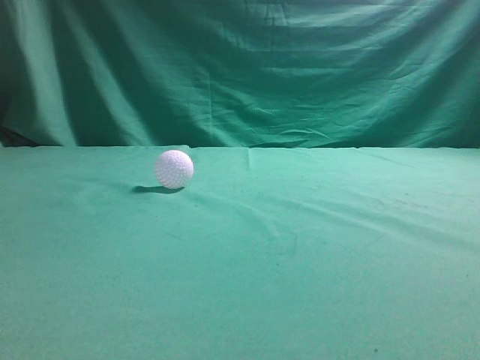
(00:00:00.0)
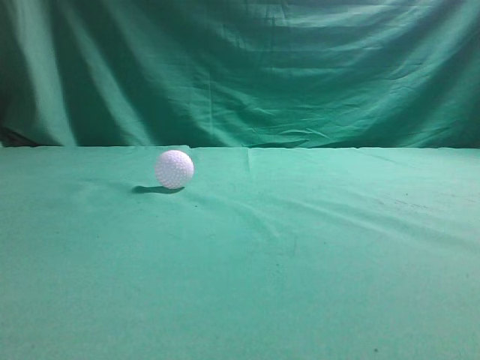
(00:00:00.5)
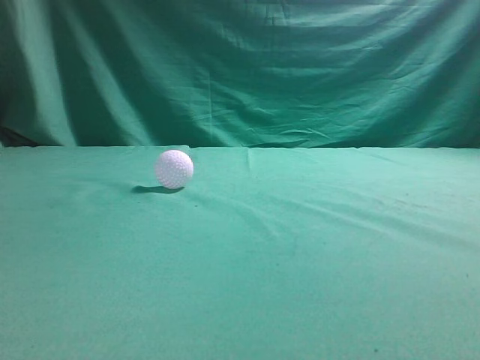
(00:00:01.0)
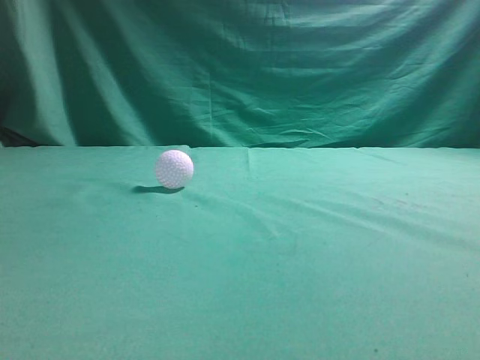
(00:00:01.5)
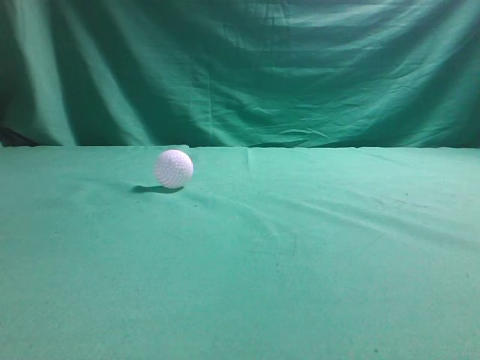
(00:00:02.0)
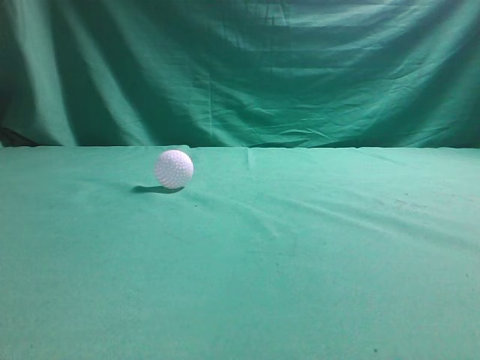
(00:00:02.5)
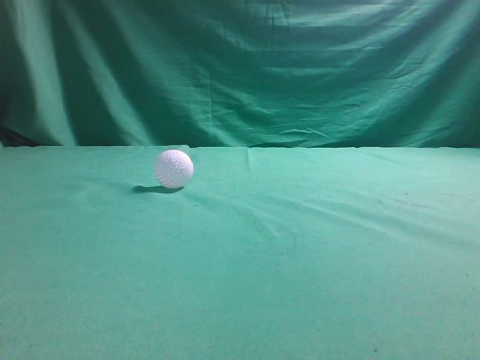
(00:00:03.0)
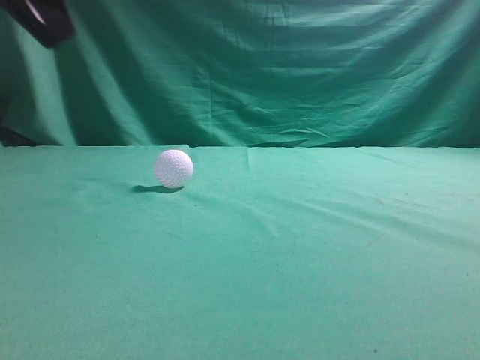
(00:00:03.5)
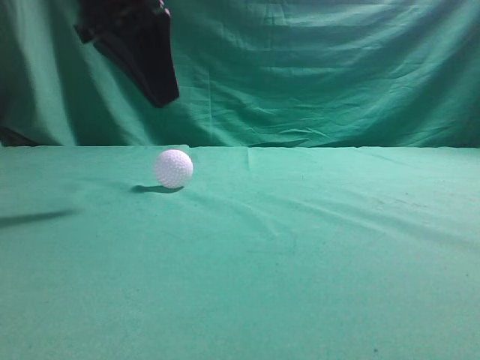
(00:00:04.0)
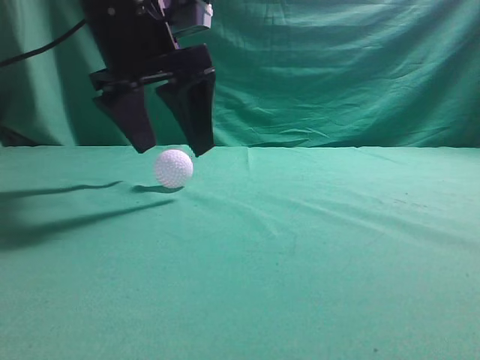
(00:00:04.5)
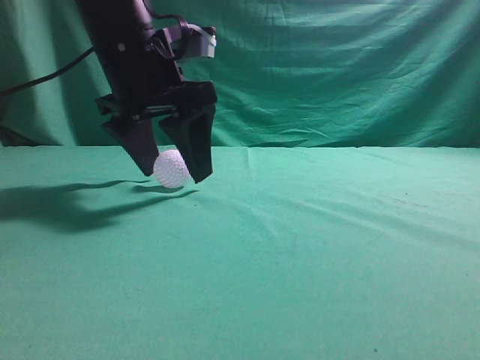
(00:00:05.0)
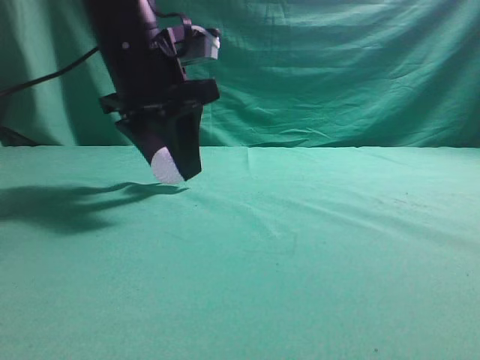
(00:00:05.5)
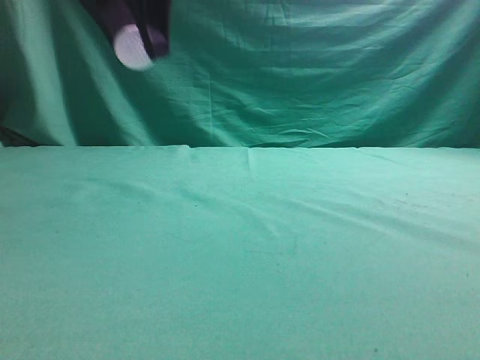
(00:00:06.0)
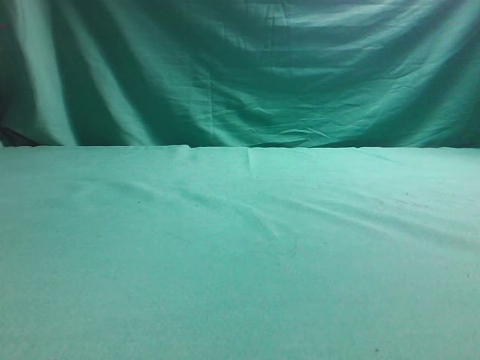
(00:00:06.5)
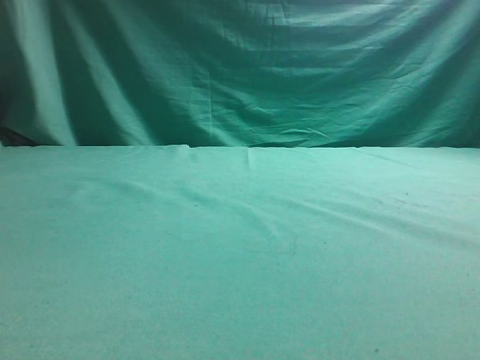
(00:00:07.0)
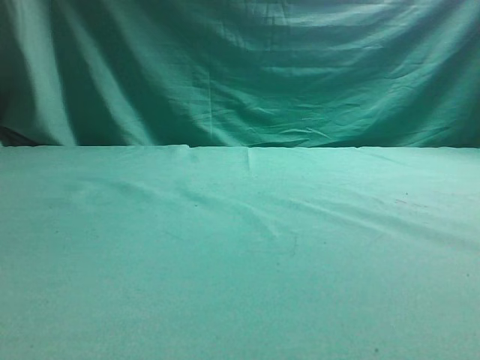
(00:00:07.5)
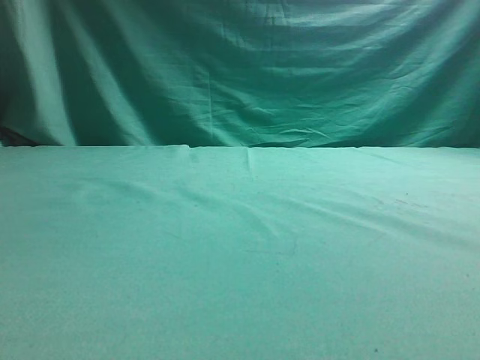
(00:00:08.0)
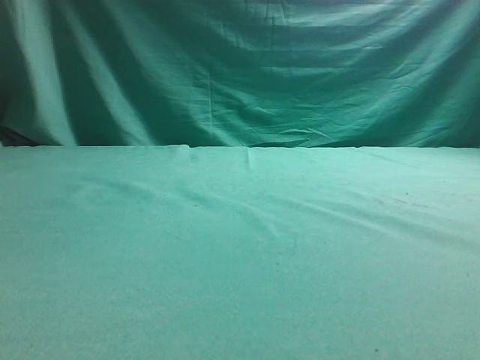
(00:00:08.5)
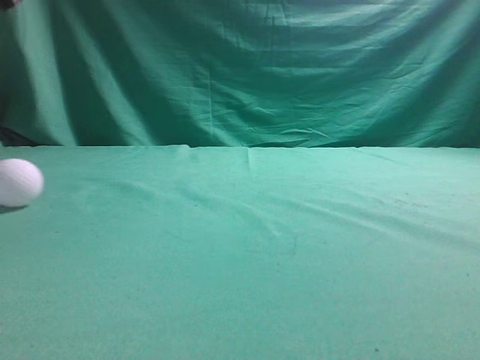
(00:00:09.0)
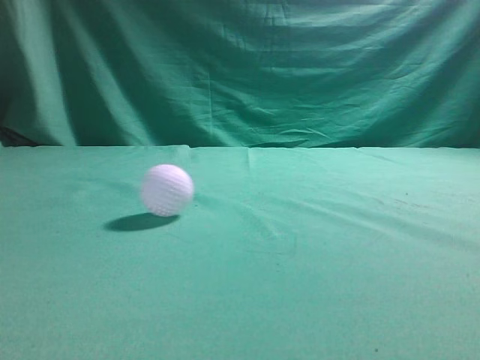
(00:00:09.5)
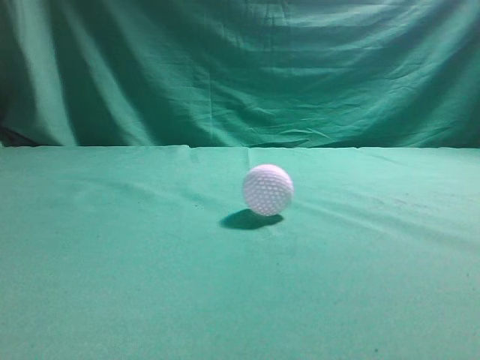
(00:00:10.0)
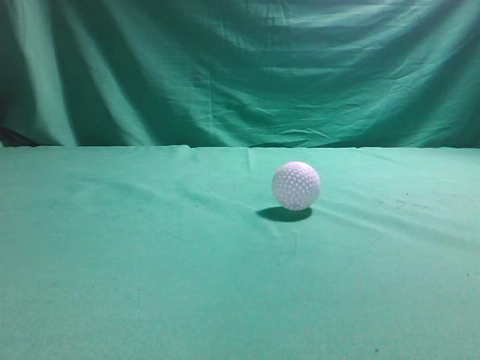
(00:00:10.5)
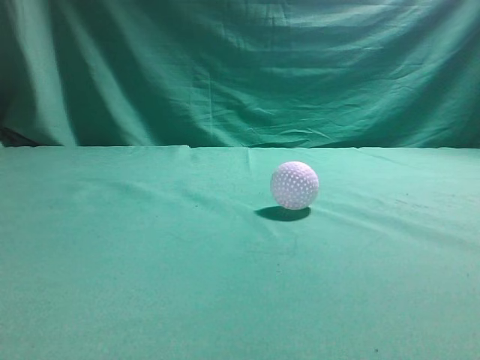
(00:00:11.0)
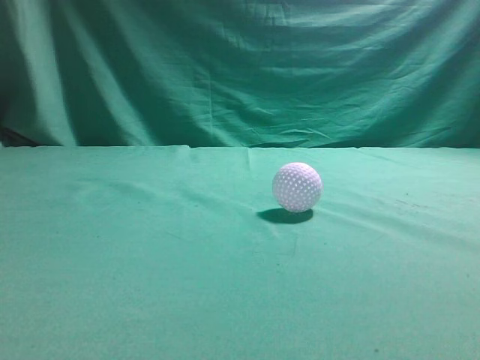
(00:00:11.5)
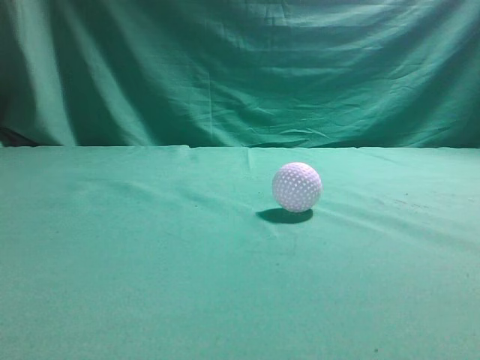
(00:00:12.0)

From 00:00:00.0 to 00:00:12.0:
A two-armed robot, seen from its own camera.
Task of the whole recording: pick up the ball and place it on the plate, then pick up the ball from the plate and put it in the center of the table.
Step, from 00:00:00.0 to 00:00:05.5: Grab the spherical object with your left arm.
Step, from 00:00:06.0 to 00:00:08.0: Place the sphere on the white object.
From 00:00:02.0 to 00:00:04.0: The left gripper shifts some 30 cm forward and to the right.
From 00:00:04.0 to 00:00:06.0: The left gripper moves about 5 cm, and opens up.
From 00:00:06.0 to 00:00:08.0: The left gripper shifts approximately 25 cm to the left.
From 00:00:08.0 to 00:00:10.0: The left gripper heads upward, backward and to the right, covering about 25 cm, and closes.
From 00:00:10.0 to 00:00:12.0: The left gripper goes some 15 cm backward and downward. Meanwhile the right gripper shifts roughly 10 cm upward.

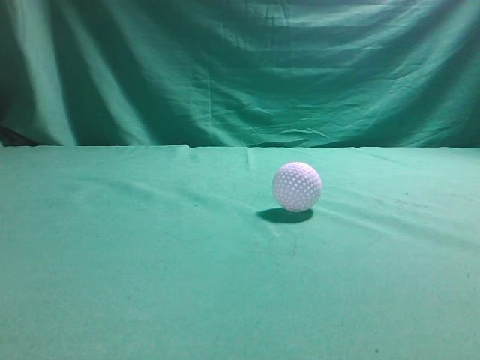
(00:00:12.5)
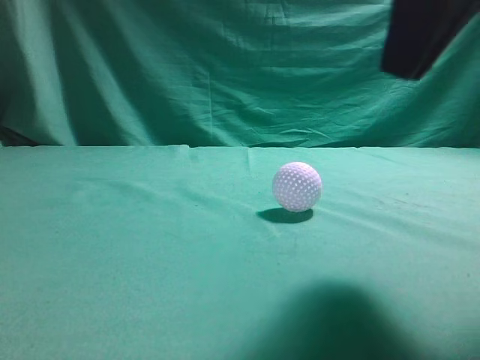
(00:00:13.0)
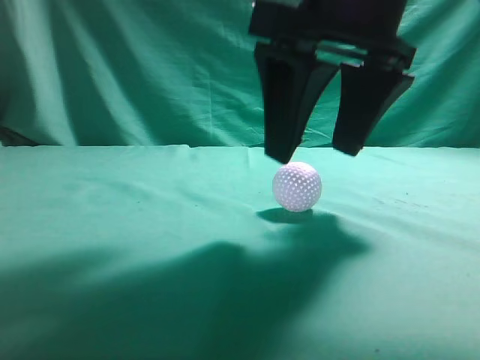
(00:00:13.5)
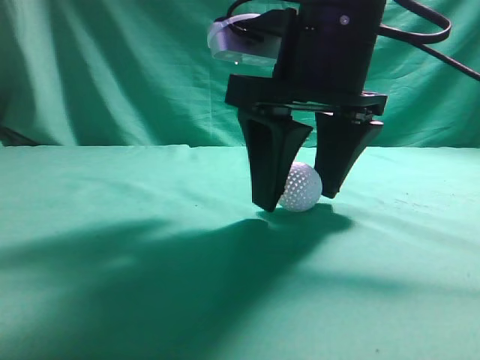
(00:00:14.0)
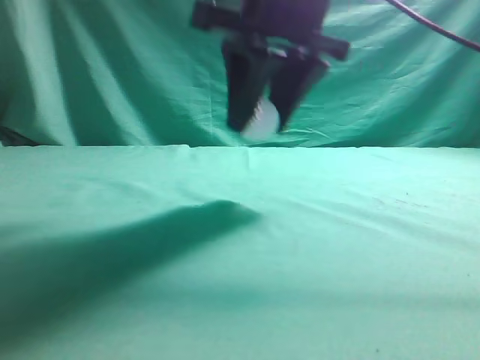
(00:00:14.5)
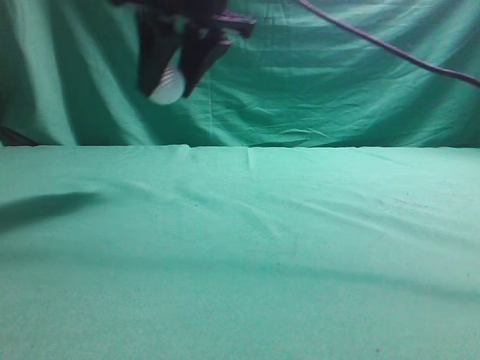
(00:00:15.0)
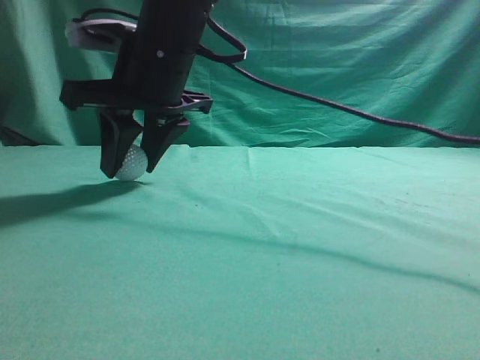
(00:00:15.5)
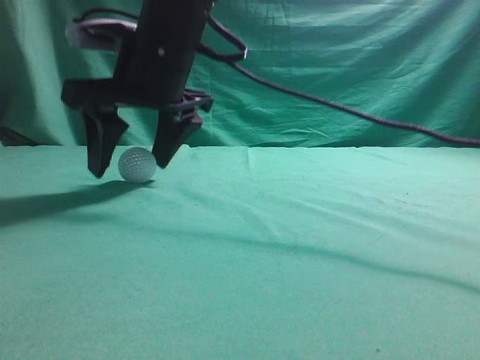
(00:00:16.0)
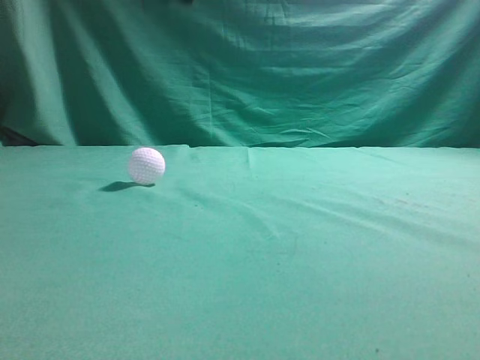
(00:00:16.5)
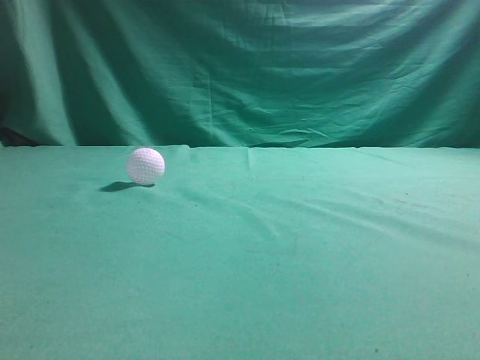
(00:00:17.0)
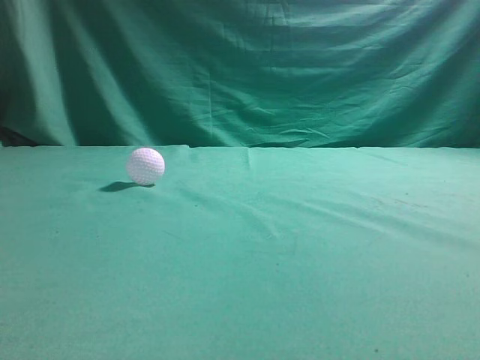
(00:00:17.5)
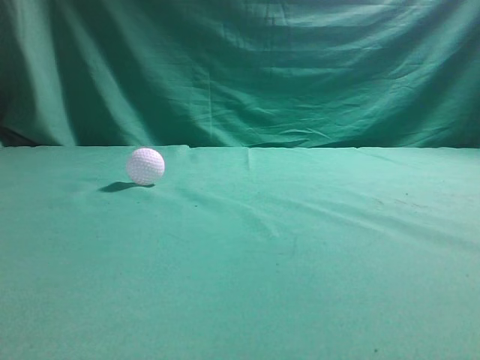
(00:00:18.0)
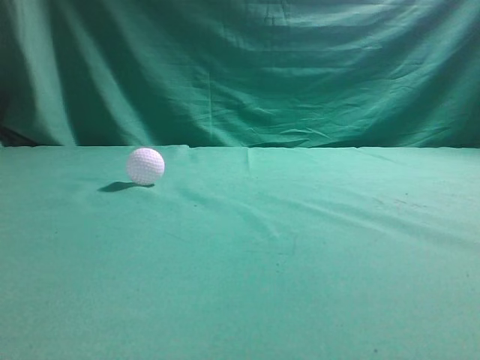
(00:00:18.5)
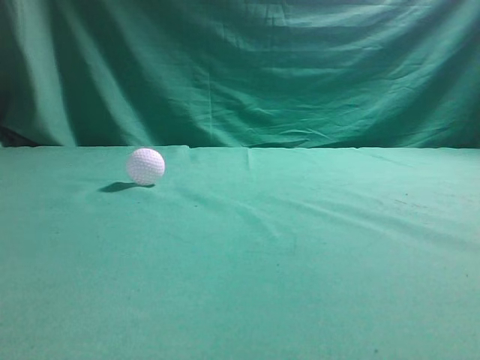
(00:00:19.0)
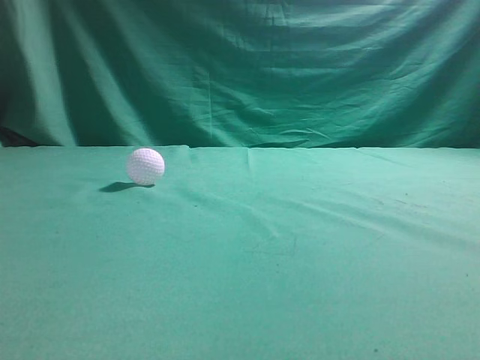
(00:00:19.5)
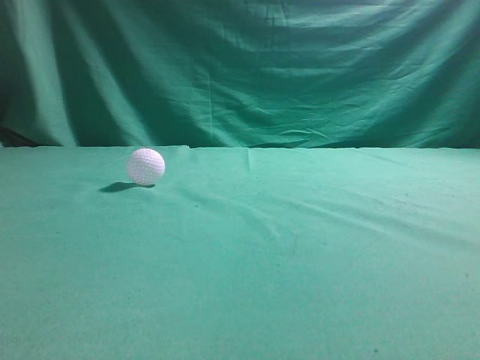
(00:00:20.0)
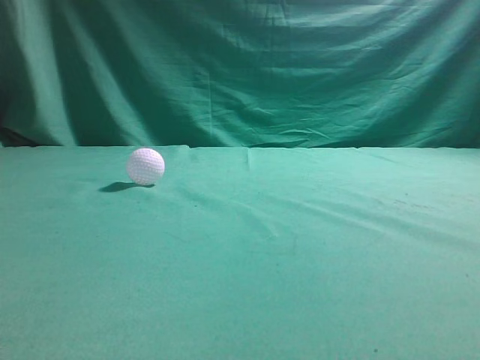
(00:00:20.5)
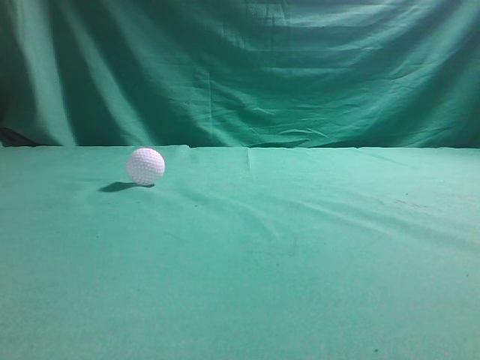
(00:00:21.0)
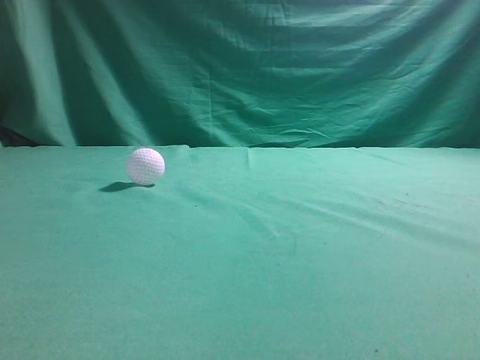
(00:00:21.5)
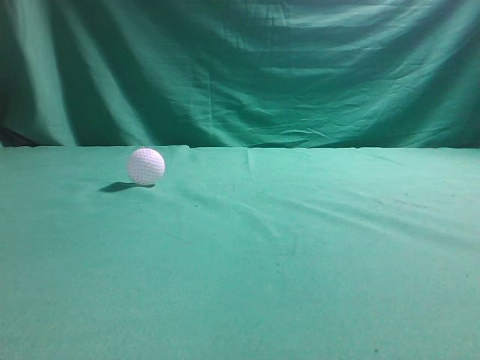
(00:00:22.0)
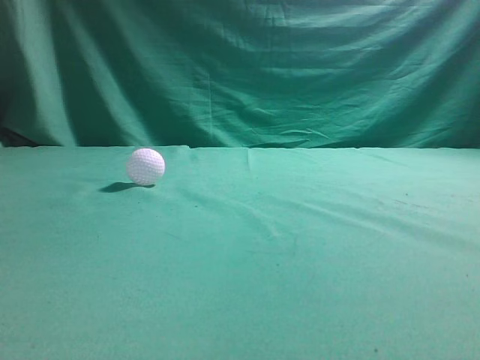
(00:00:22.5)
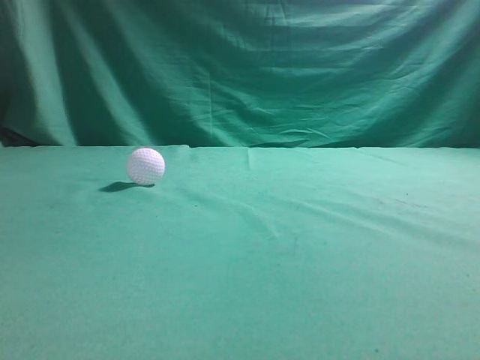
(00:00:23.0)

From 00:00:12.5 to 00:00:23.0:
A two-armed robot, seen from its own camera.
Task of the whole recording: pick up the ball and place it on the plate, then pick up the ball from the plate and put it in the center of the table.
Step, from 00:00:14.5 to 00:00:16.0: Put the picked-up object on the table.
From 00:00:12.5 to 00:00:14.5: The right gripper travels forward and to the left by approximately 25 cm, and opens up.
From 00:00:14.5 to 00:00:16.5: The right gripper shifts about 15 cm upward and to the left, and closes up.
